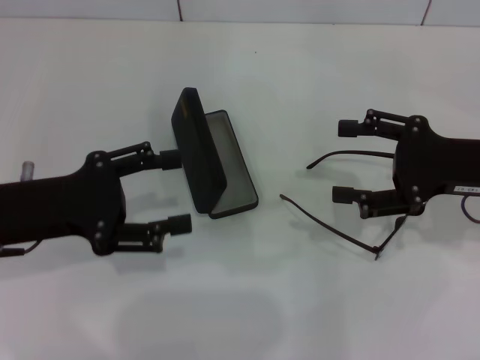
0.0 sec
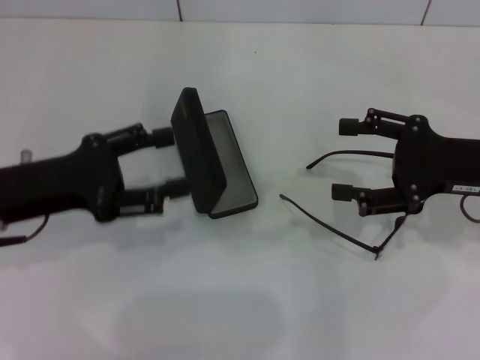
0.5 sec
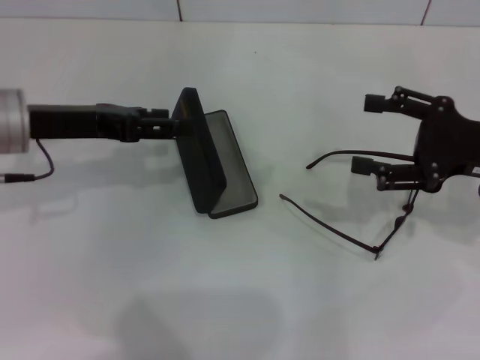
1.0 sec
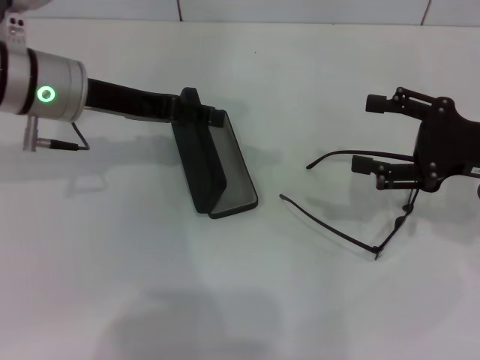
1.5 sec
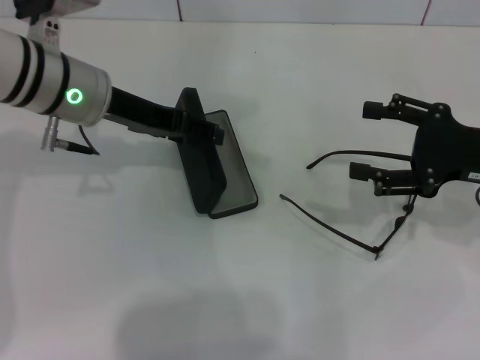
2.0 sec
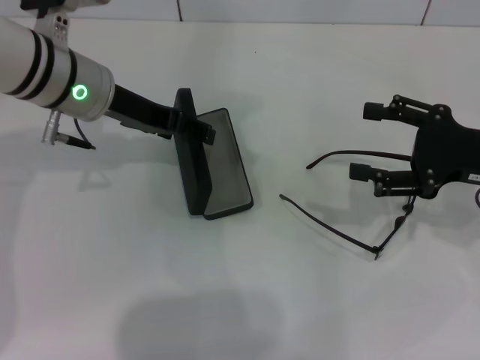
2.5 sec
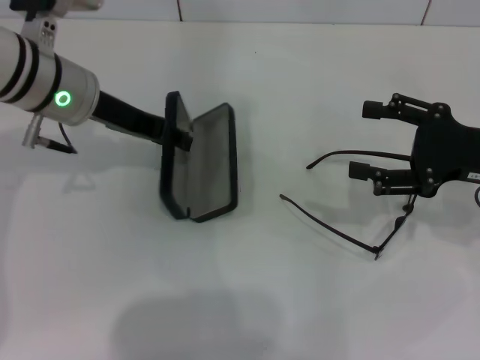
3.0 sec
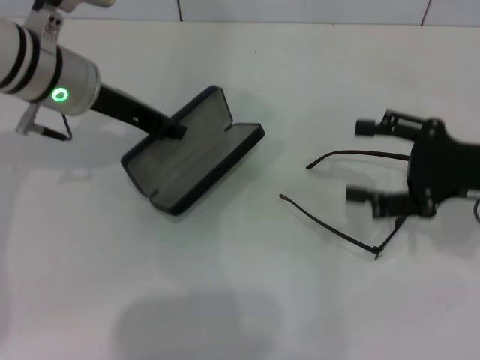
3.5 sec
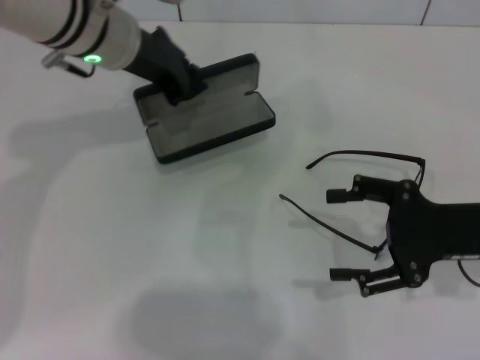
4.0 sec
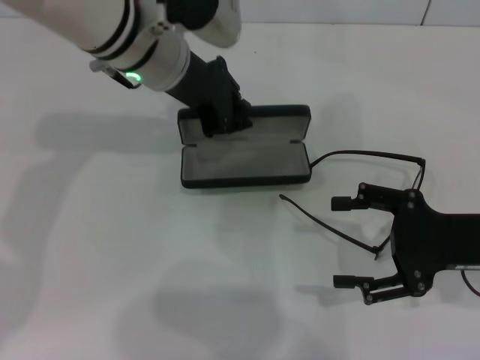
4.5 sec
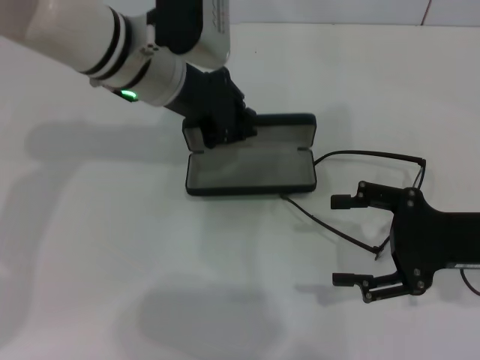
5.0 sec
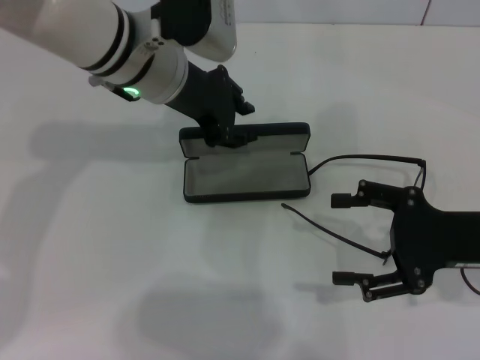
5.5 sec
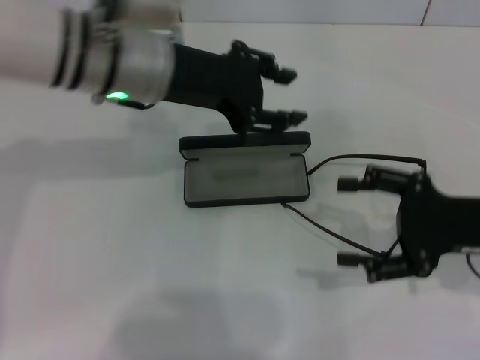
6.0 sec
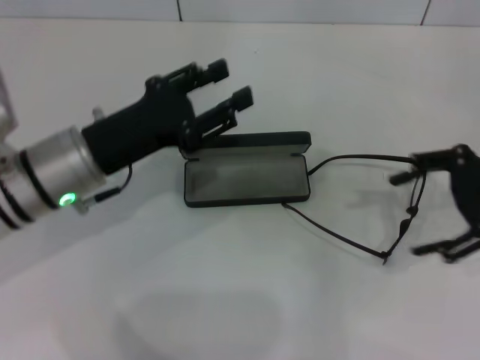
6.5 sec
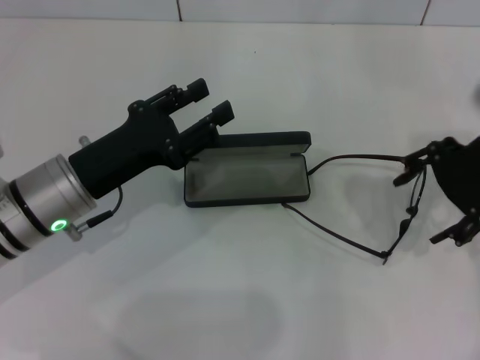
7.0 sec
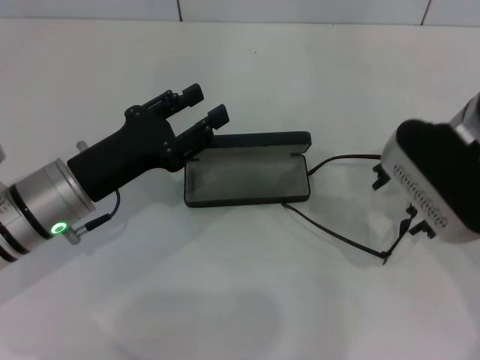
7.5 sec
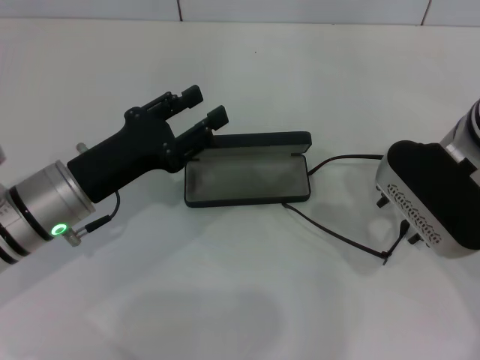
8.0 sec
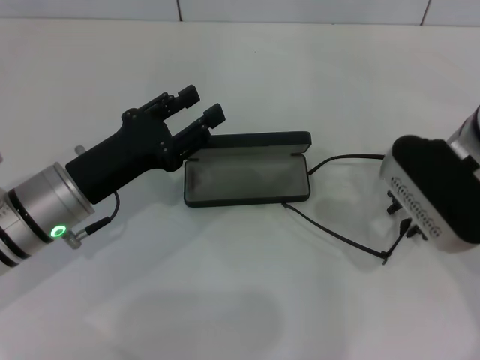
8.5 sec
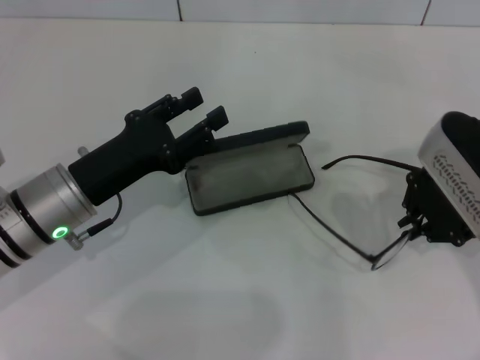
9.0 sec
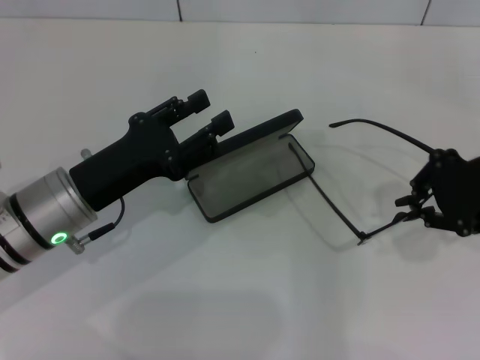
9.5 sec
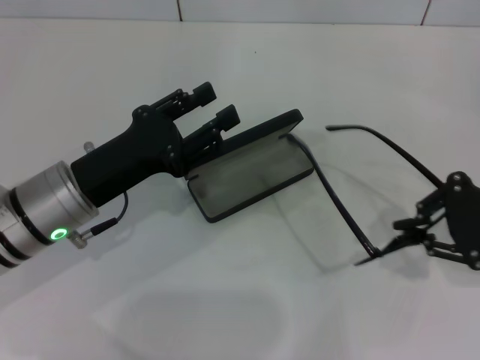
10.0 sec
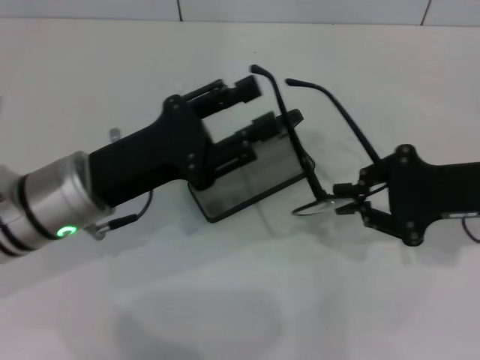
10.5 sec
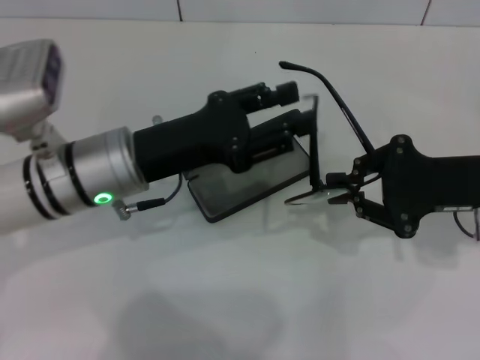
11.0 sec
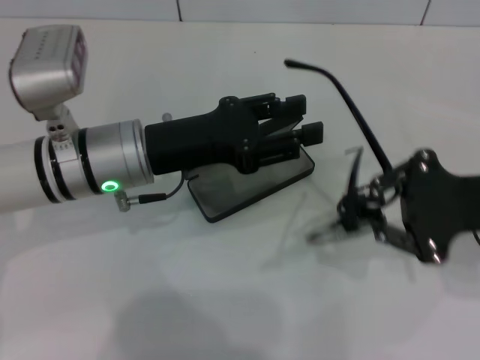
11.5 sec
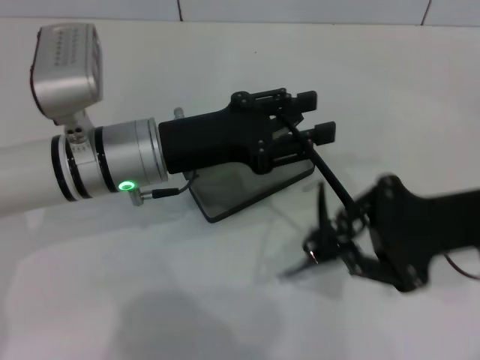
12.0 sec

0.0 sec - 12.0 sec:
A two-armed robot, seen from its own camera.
Step, 0.0 sec - 3.0 sec: Grab the glasses case with your left hand.
Step, 3.5 sec - 5.5 sec: Place the glasses case in the center of the table with your left hand.
Step, 6.0 sec - 8.5 sec: Grab the eyeglass frame with your right hand.
0.0 sec - 2.0 sec: The left gripper moves forward and to the right, some 15 cm.
2.0 sec - 4.0 sec: The left gripper moves some 5 cm, and closes up.
4.0 sec - 6.0 sec: The left gripper changes place by roughly 5 cm, and opens up.
6.0 sec - 8.0 sec: The left gripper moves downward, backward and to the left, some 15 cm. The right gripper moves to the left, forward and upward, approximately 15 cm.
8.0 sec - 10.0 sec: The right gripper moves to the right, approximately 15 cm, and closes.
10.0 sec - 12.0 sec: The right gripper goes roughly 5 cm to the left. The left gripper heads to the right, covering roughly 5 cm.

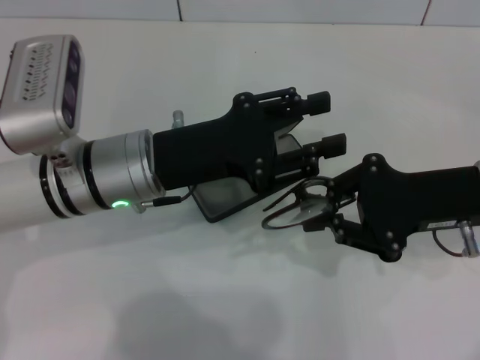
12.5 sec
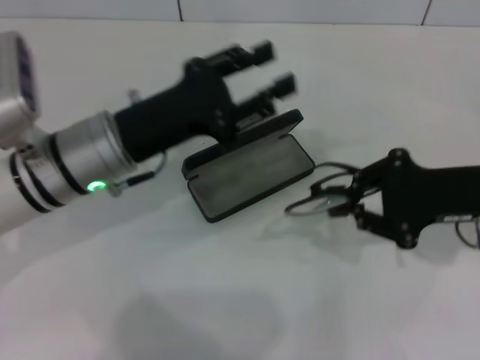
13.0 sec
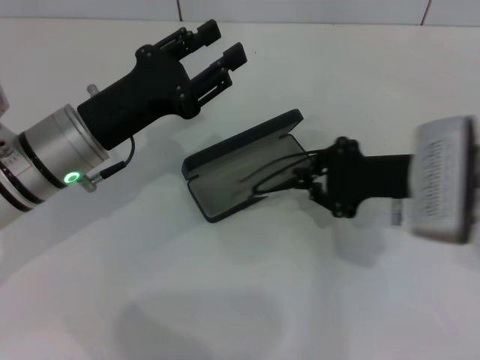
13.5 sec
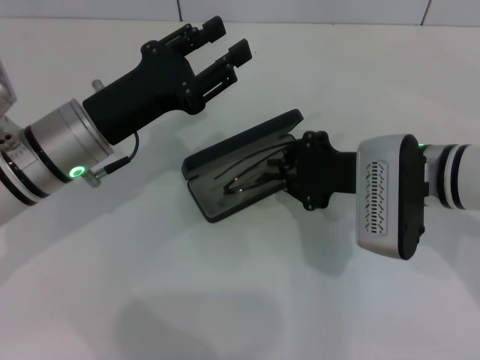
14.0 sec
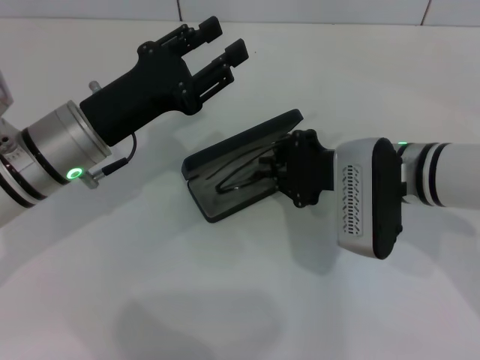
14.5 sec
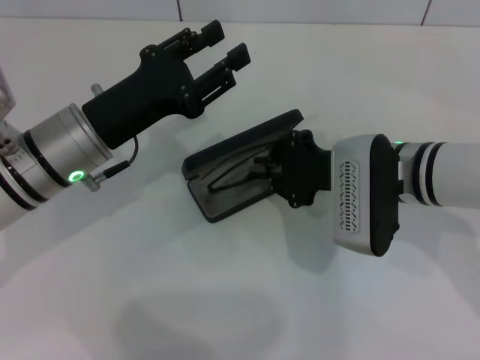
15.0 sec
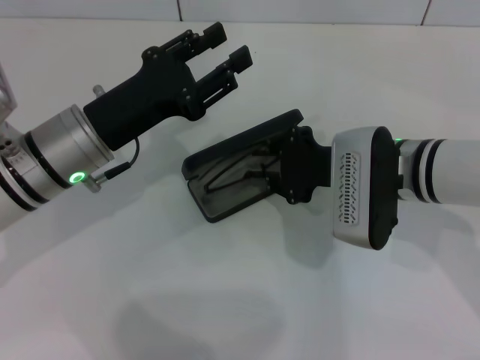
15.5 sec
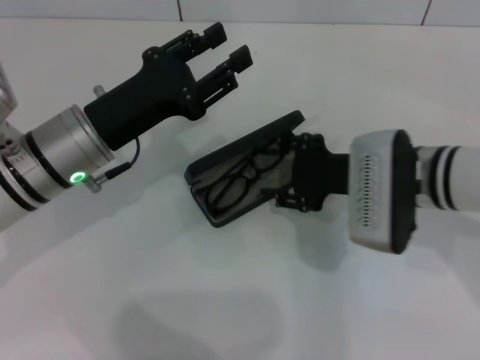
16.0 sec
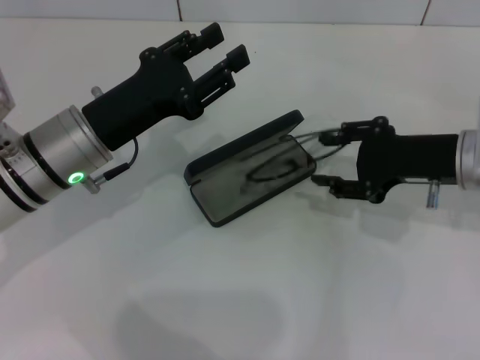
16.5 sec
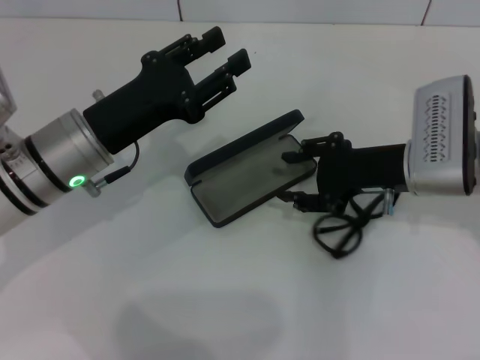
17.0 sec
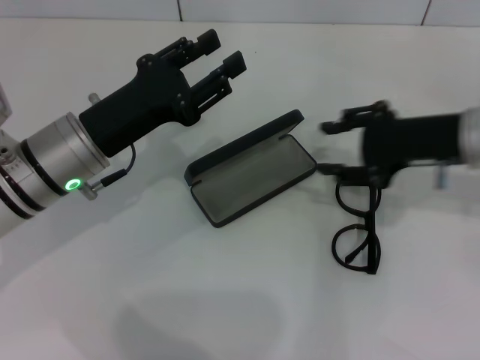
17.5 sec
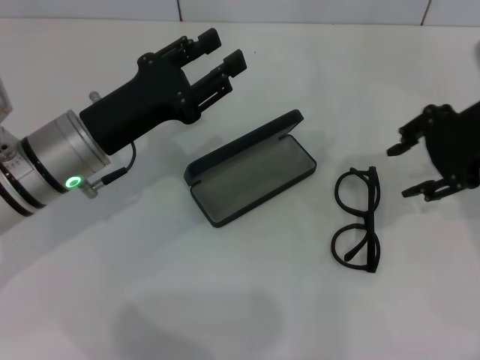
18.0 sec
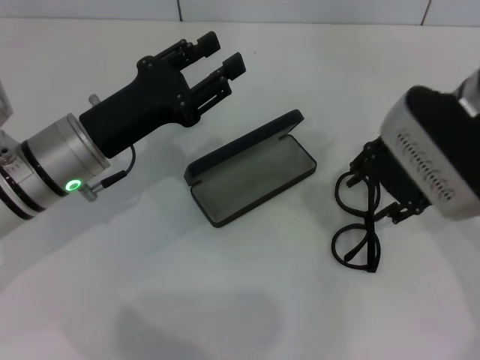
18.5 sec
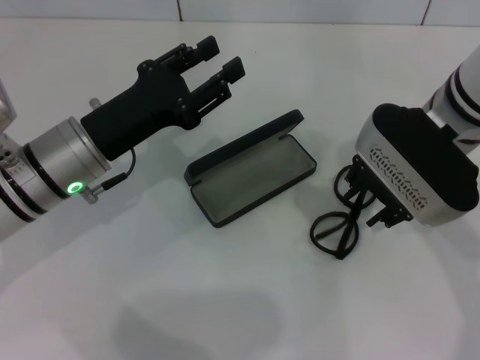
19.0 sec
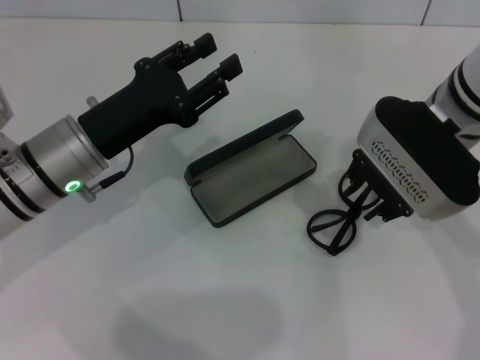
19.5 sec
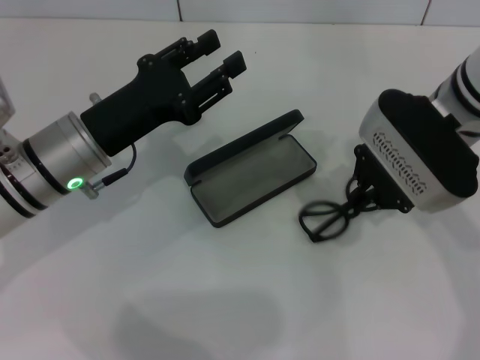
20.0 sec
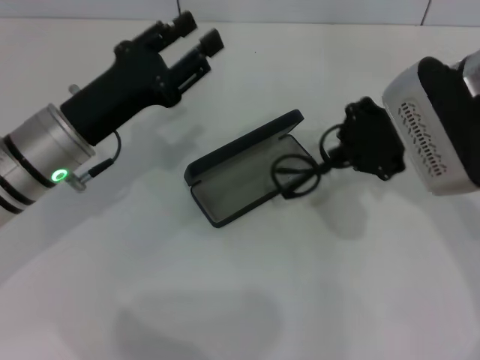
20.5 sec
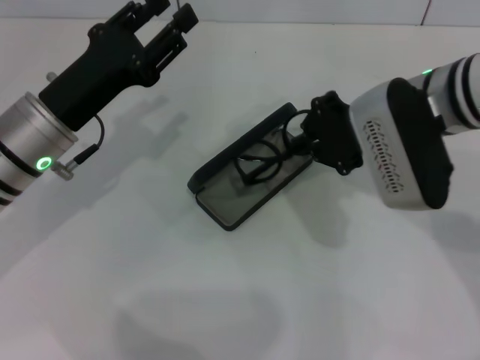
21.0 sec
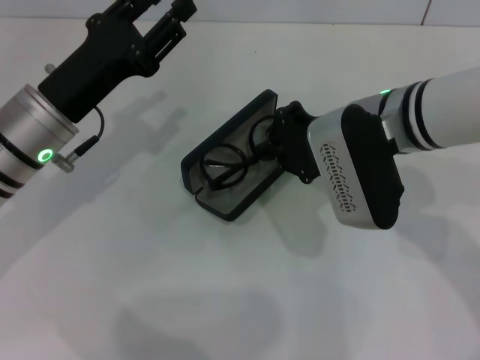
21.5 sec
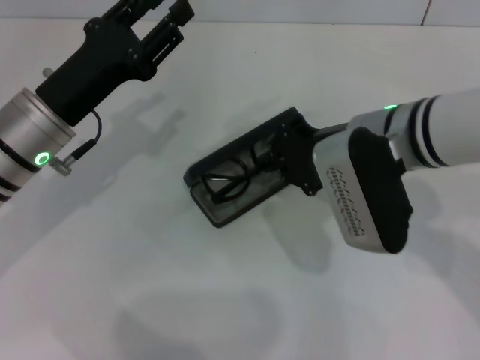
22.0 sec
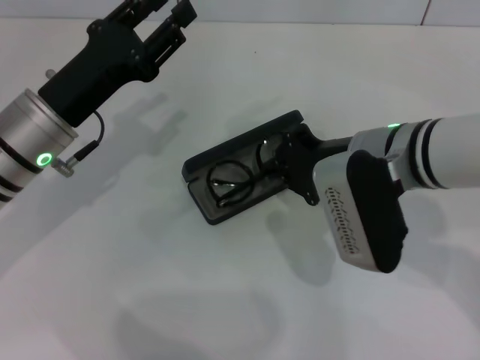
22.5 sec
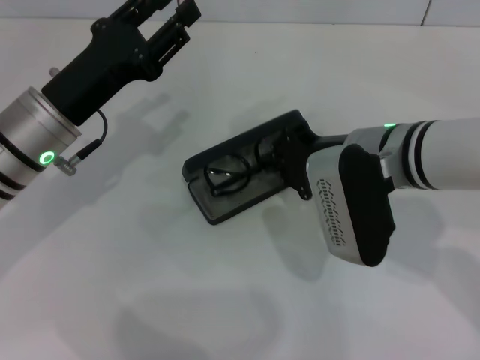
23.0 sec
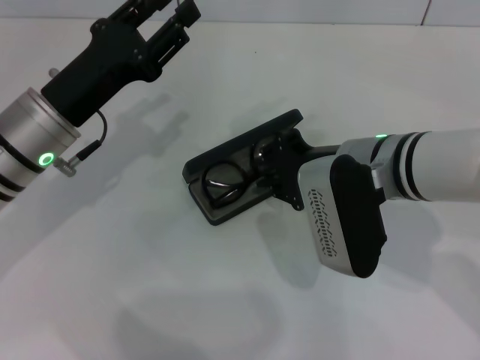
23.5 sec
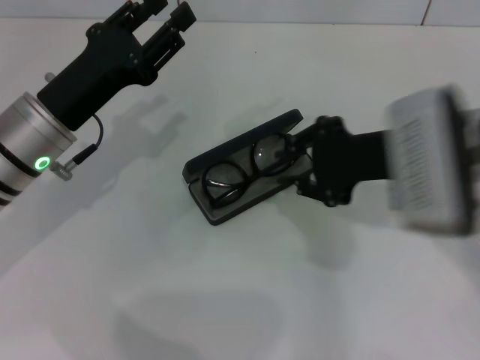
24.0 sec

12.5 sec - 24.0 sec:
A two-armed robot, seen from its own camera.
Step, 13.0 sec - 23.5 sec: Put the glasses into the case with your right hand.
12.5 sec - 14.5 sec: The left gripper shifts by approximately 5 cm. The right gripper goes some 10 cm to the left.
14.5 sec - 16.5 sec: The right gripper goes roughly 10 cm to the right, and opens.
16.5 sec - 18.5 sec: The right gripper shifts about 10 cm upward and to the left.
18.5 sec - 20.0 sec: The right gripper closes up.
20.0 sec - 22.0 sec: The right gripper changes place by roughly 5 cm.
22.0 sec - 24.0 sec: The right gripper ends up approximately 5 cm from where it was.

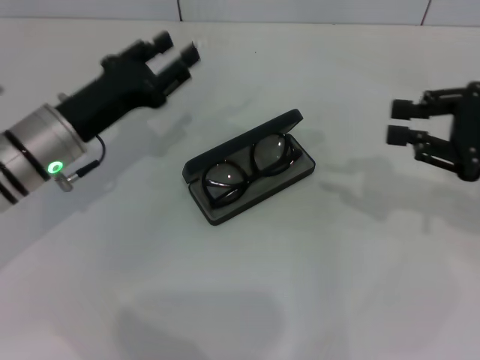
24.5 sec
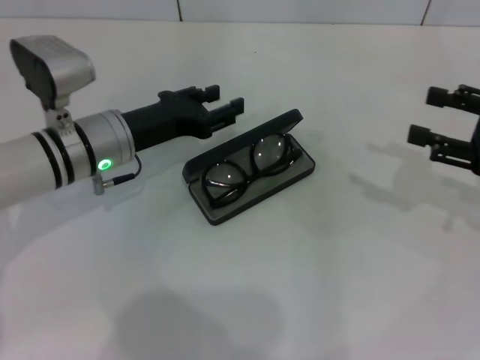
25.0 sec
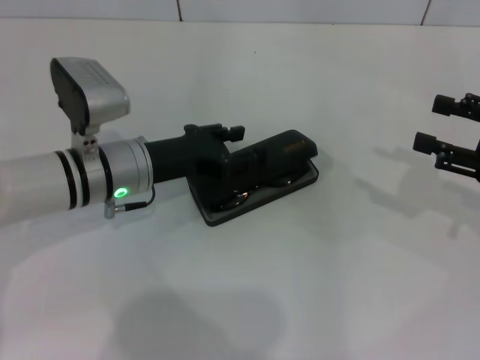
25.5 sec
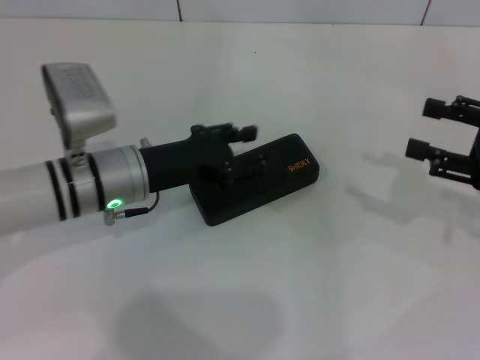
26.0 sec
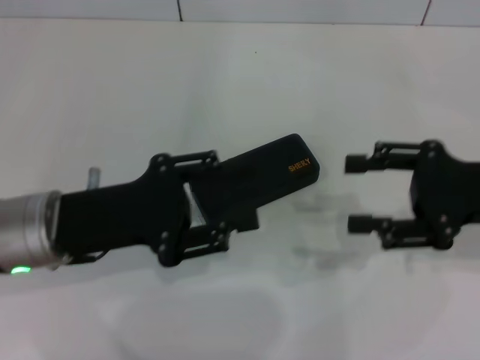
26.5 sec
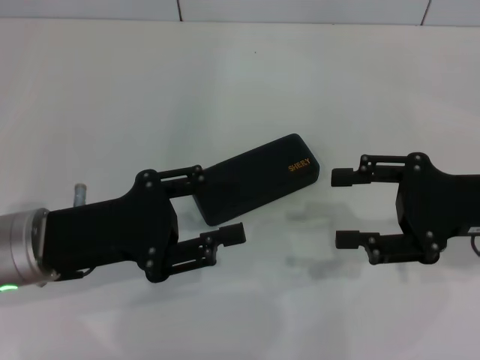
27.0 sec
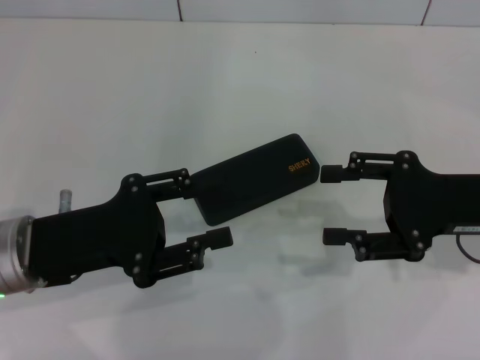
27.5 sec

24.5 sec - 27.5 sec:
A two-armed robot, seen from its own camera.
Step, 24.5 sec - 26.0 sec: Close the glasses case with your left hand.
24.5 sec - 26.0 sec: The right gripper opens up, while the left gripper is displaced to the right by approximately 5 cm.
26.0 sec - 27.5 sec: The right gripper goes roughly 5 cm to the left. The left gripper is displaced backward and to the left by some 10 cm.
